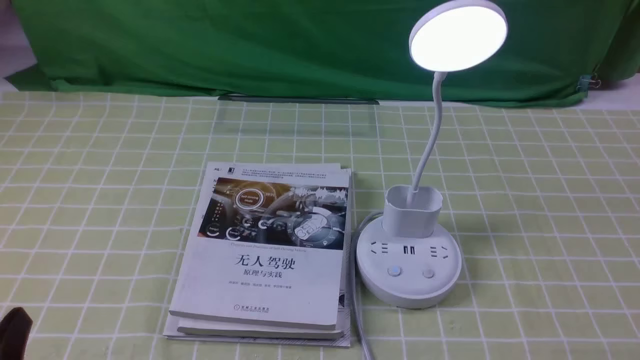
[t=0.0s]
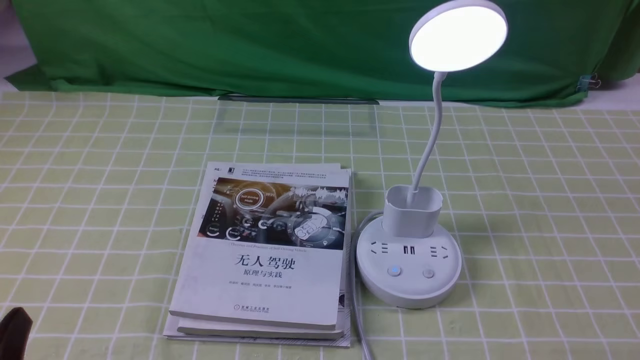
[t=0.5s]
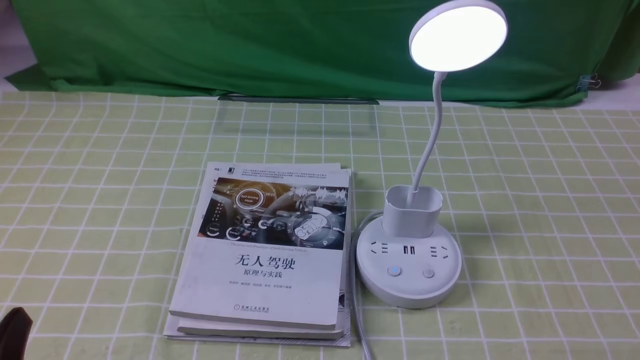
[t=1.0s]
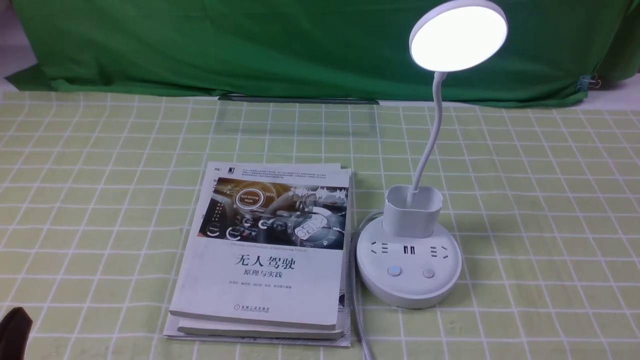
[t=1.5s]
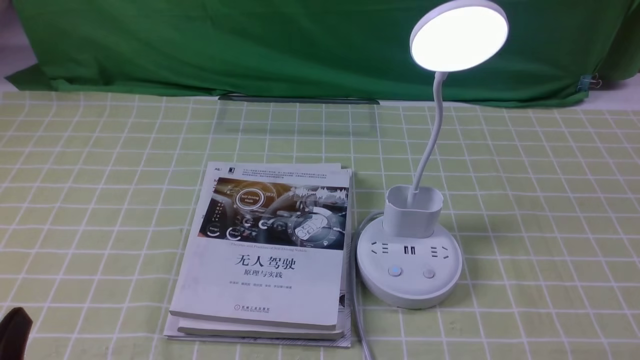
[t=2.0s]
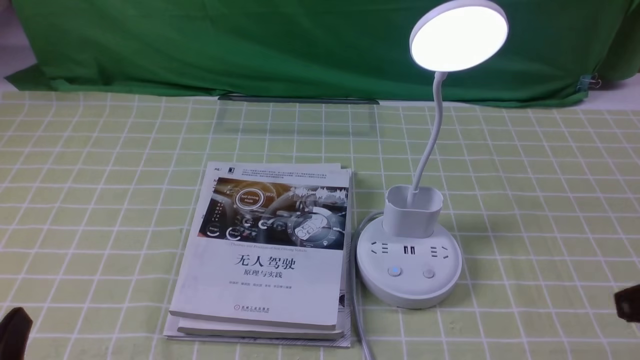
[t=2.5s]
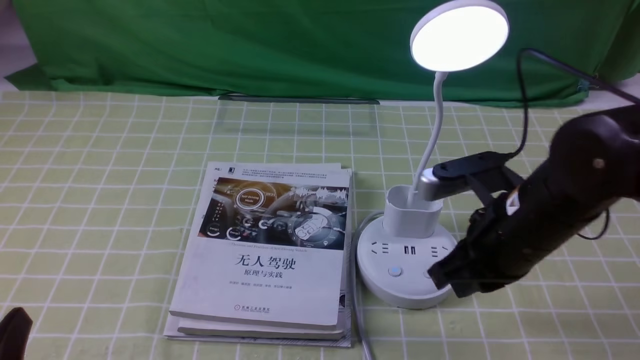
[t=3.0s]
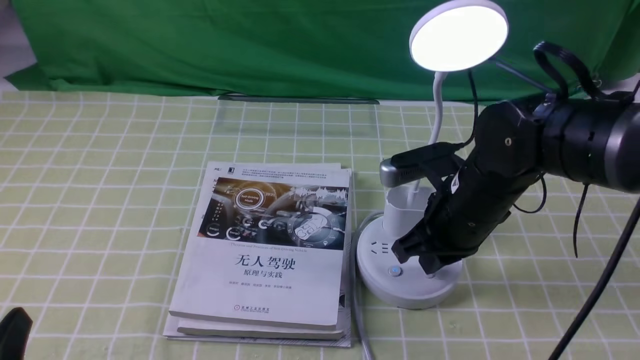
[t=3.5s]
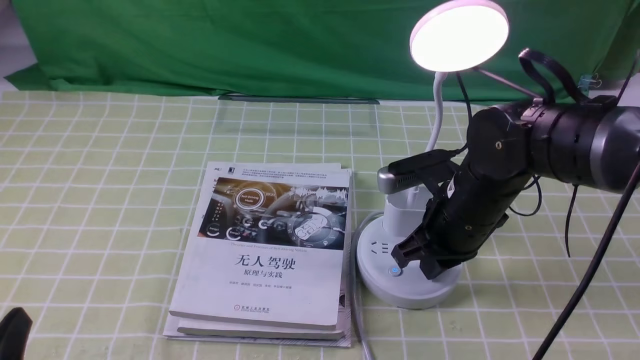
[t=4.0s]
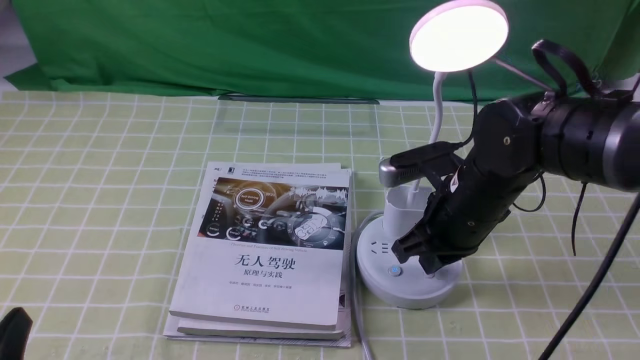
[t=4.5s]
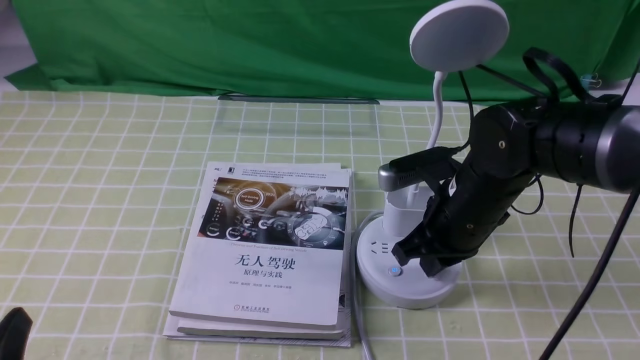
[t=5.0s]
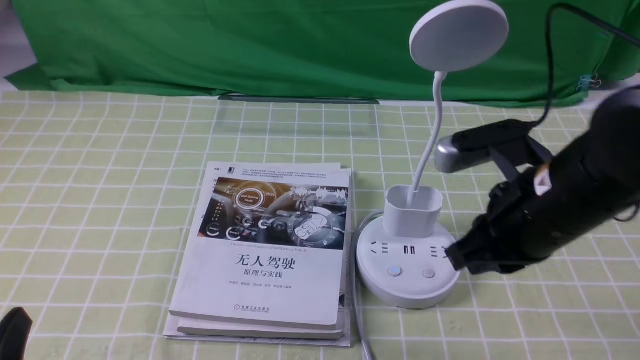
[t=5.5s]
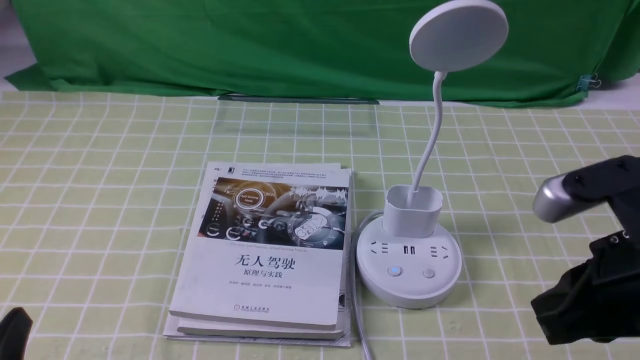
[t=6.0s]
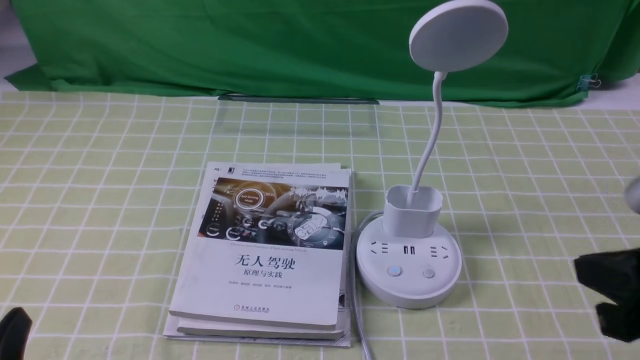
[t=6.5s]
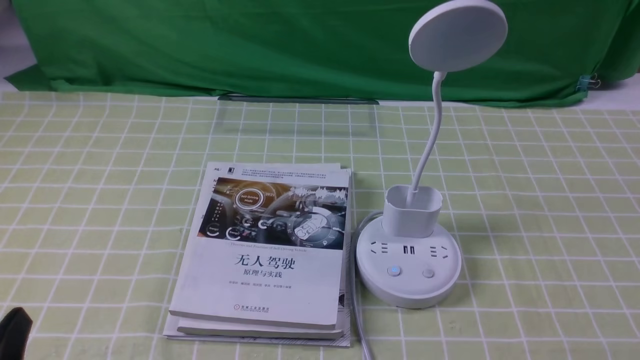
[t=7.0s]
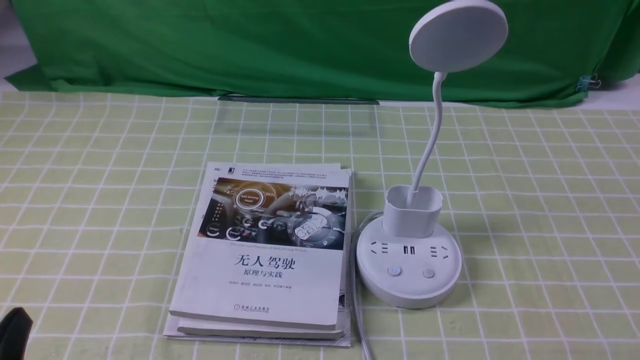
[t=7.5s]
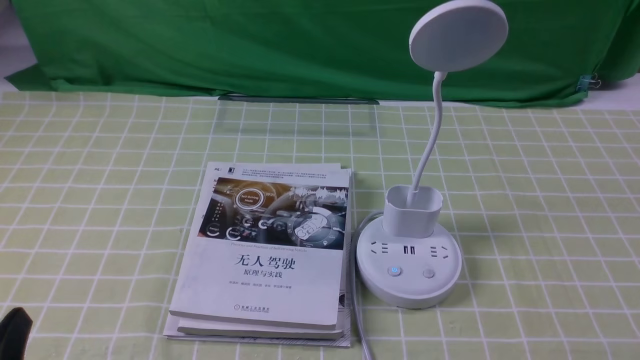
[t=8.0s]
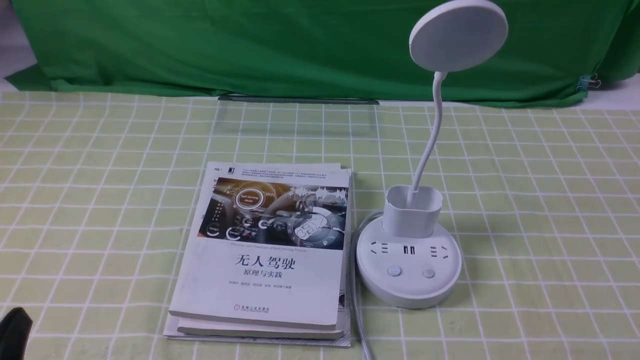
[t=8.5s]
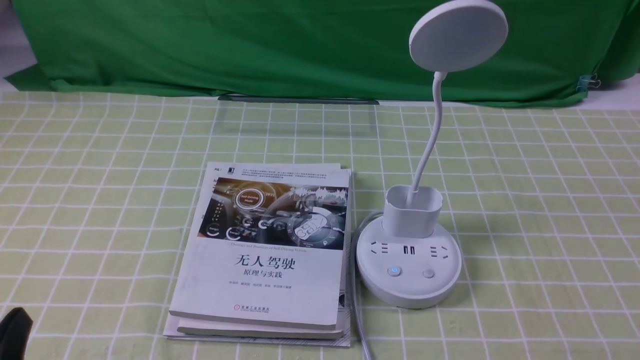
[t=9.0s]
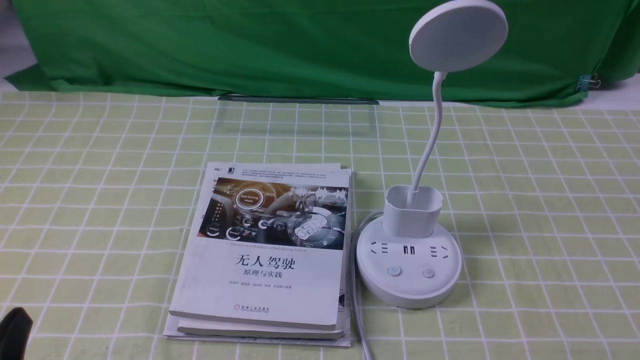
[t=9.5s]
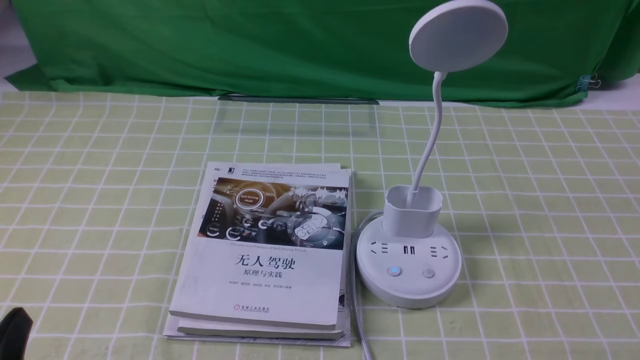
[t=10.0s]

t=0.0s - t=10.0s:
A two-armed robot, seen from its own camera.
Task of the whole recording: turn off the desk lamp on the green coffee tablecloth by hand.
Step, t=0.0s - t=5.0s: use the right arm to press the button switch on the lamp holder.
t=2.0s - t=4.0s: The right gripper travels forward and to the left by some 30 cm.
t=4.0s - t=6.0s: The right gripper travels backward, upward and to the right by approximately 20 cm.
t=6.0s - t=8.0s: The right gripper heads backward, downward and to the right, covering roughly 20 cm.

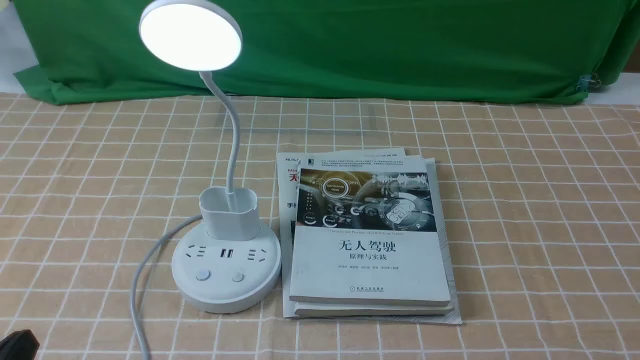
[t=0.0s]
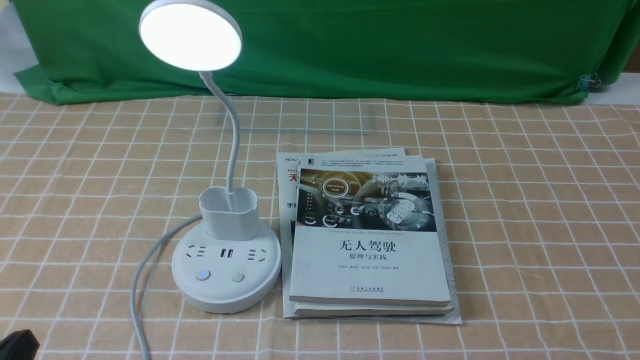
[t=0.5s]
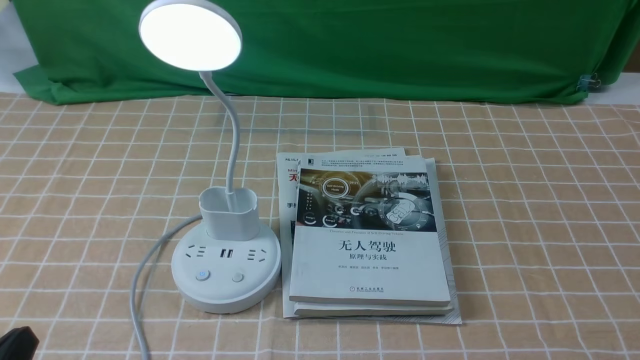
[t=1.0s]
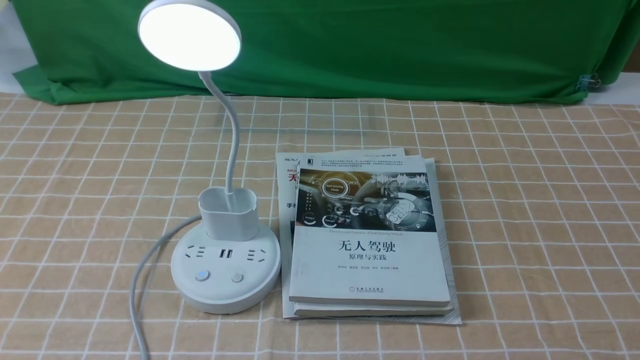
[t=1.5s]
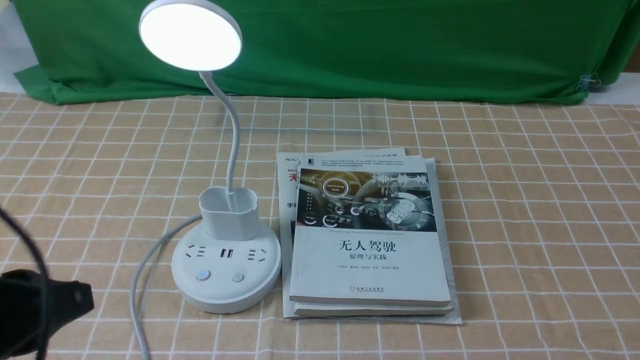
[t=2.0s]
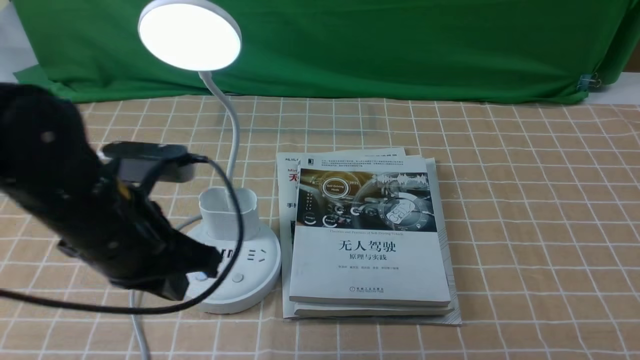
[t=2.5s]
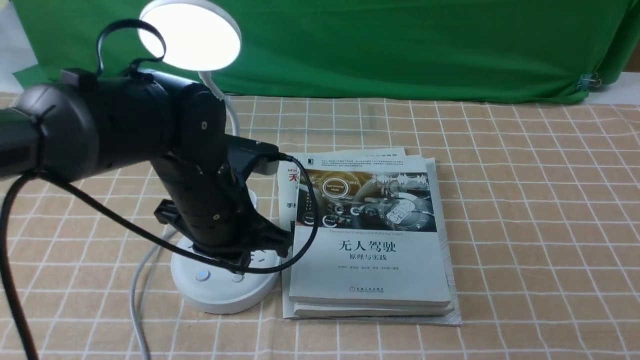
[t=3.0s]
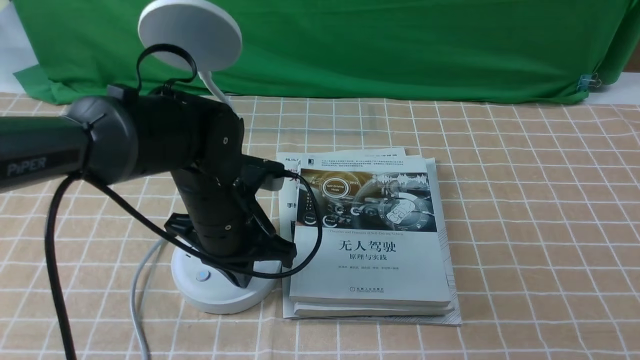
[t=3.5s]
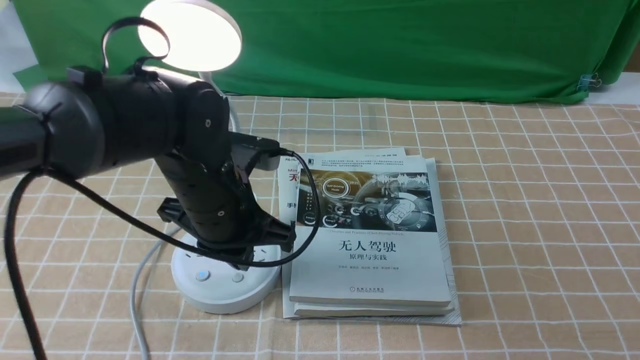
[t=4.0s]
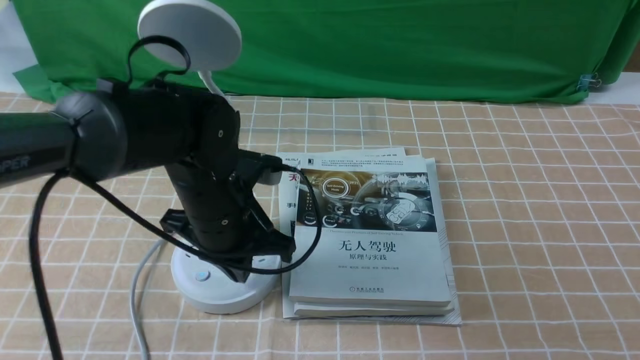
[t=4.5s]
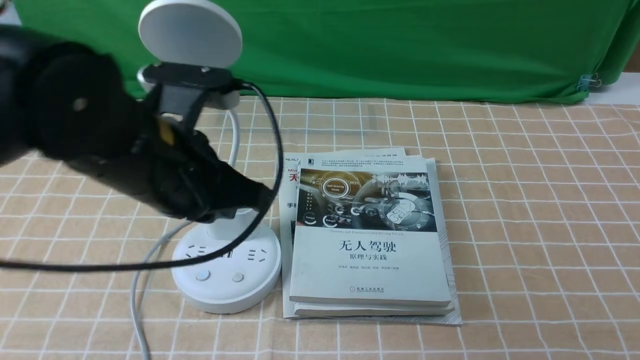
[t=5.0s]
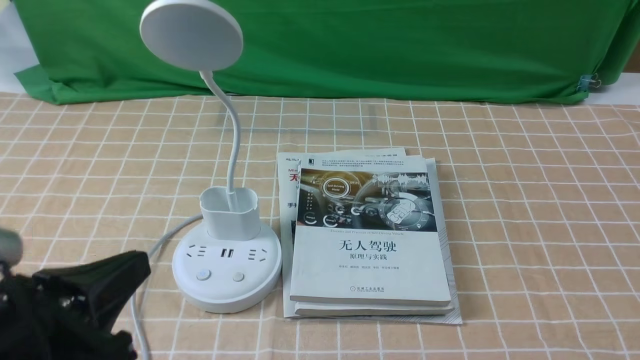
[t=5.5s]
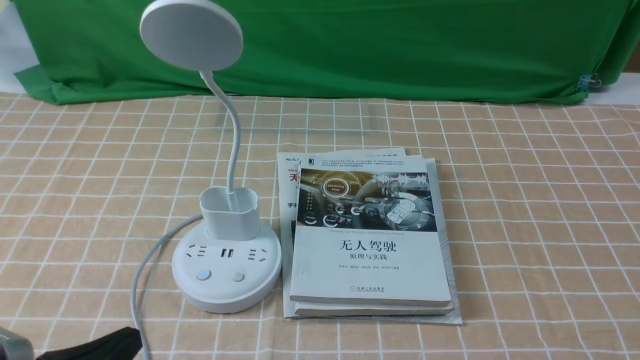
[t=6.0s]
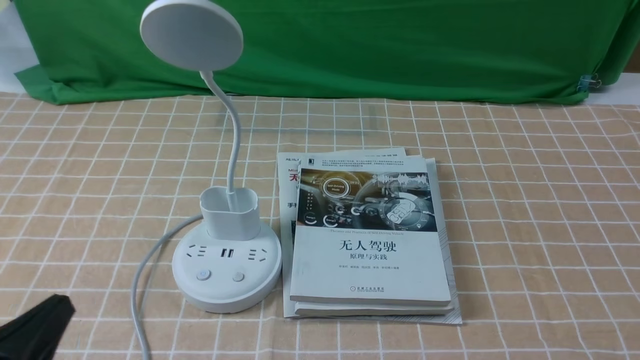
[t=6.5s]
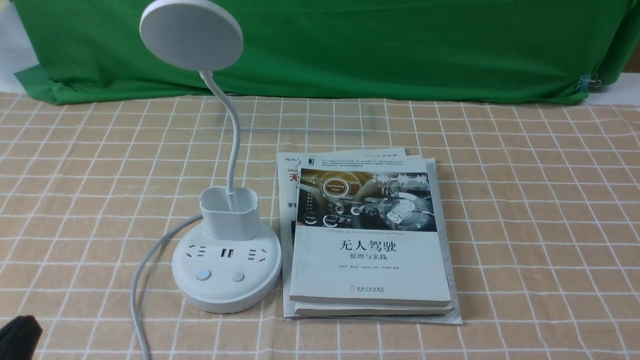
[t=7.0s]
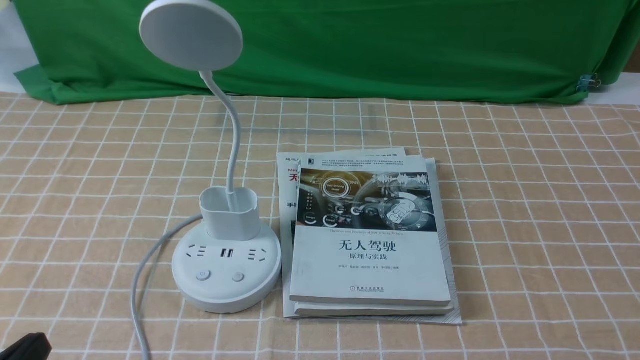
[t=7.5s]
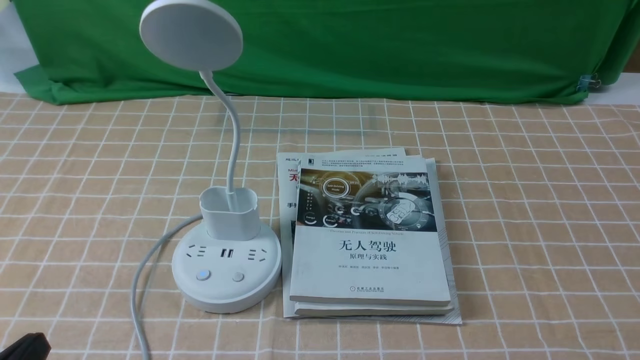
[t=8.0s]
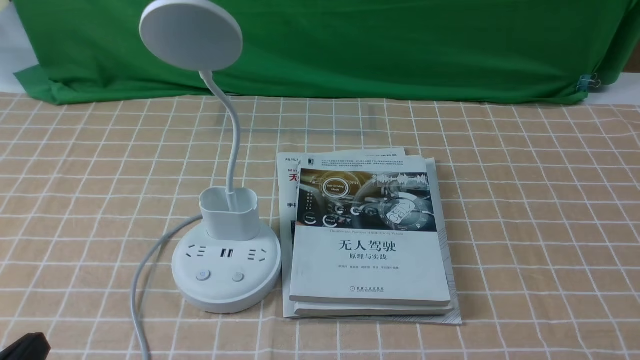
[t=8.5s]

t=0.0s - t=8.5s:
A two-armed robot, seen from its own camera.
Task of the whole recording: turn off the desk lamp on the light coffee tablecloth by hand.
Step, t=0.0s - t=4.5s: use the left arm to press the button switch on the lamp holder.
t=0.0s - t=2.0s: The left gripper heads upward and forward, covering some 15 cm.
t=2.0s - t=4.0s: The left gripper goes approximately 25 cm forward, to the right and downward.
t=4.0s - t=6.5s: The left gripper moves backward and to the left, approximately 30 cm.
t=6.5s - t=8.5s: There are only small adjustments of the grippers.

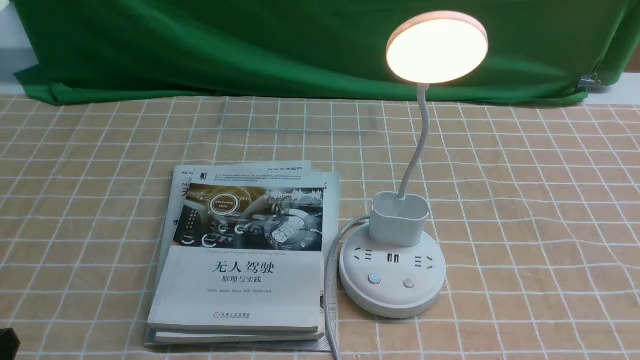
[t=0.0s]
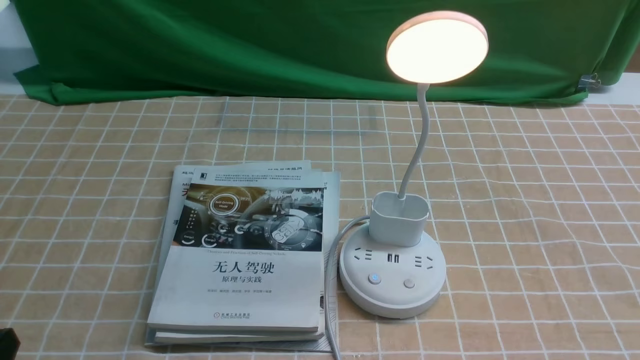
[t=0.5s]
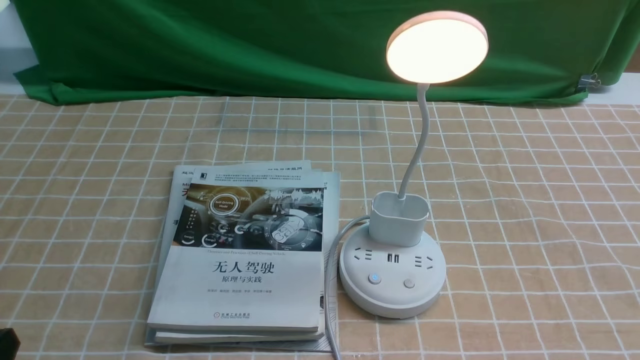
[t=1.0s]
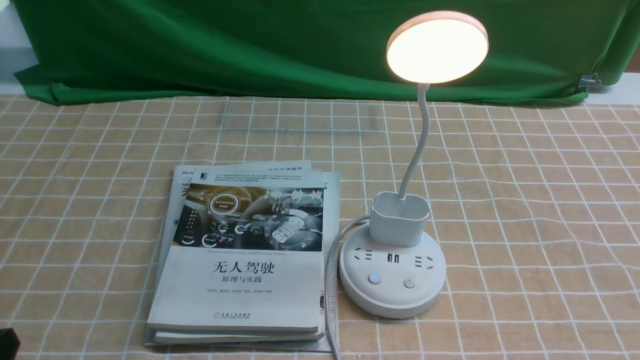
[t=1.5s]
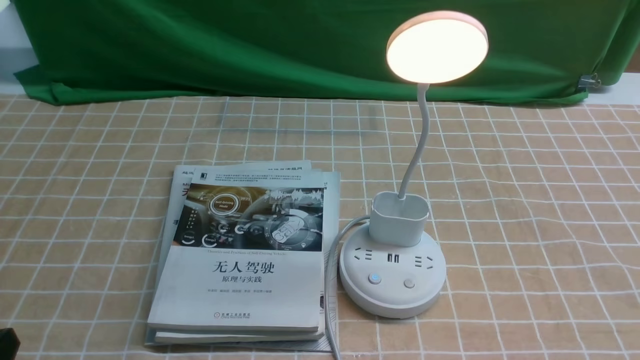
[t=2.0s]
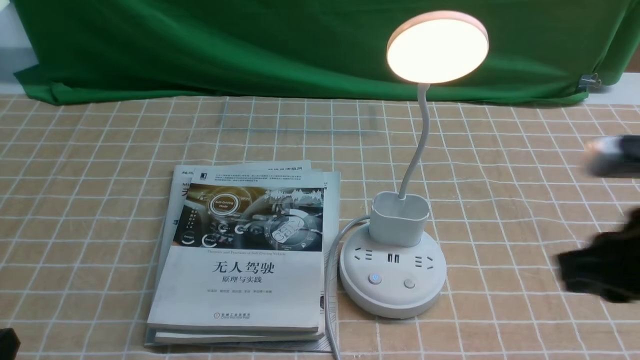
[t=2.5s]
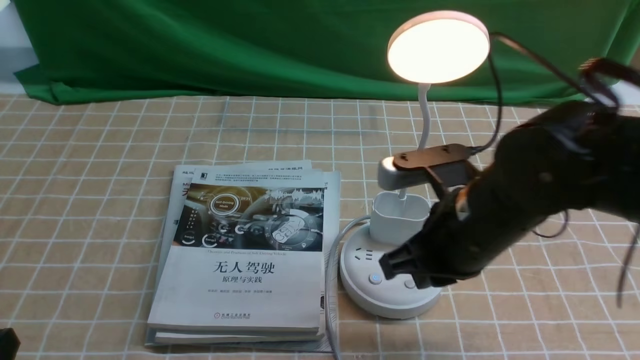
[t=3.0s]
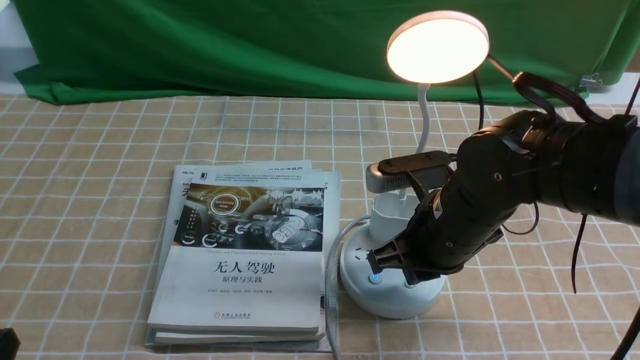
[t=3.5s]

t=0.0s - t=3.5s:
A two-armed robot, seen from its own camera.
Task of the whole recording: turn off the desk lamp on the light coffee tablecloth by hand.
t=2.0s - t=3.5s: The right gripper moves forward, to the left and downward, approximately 30 cm.
